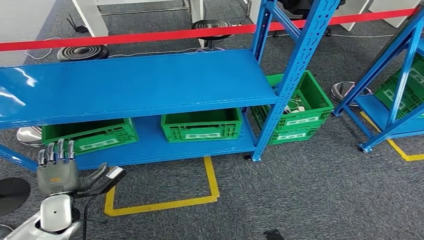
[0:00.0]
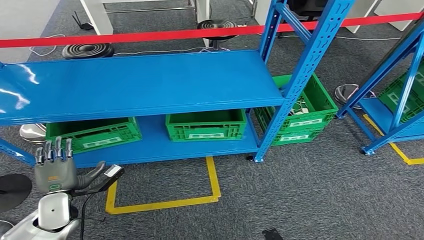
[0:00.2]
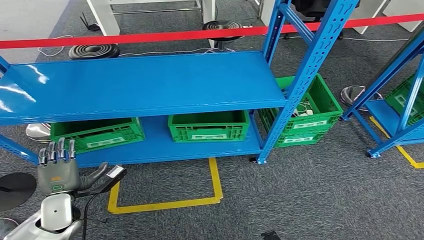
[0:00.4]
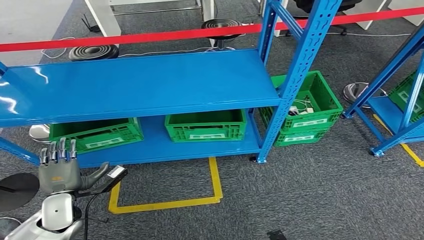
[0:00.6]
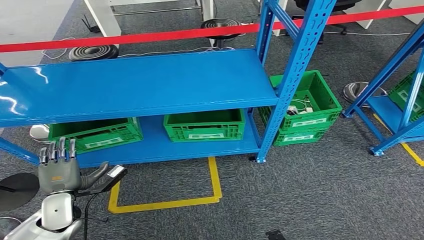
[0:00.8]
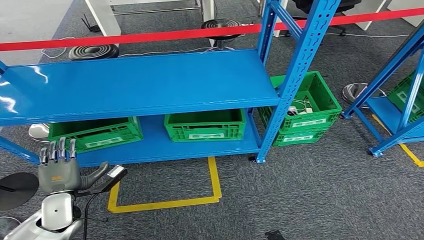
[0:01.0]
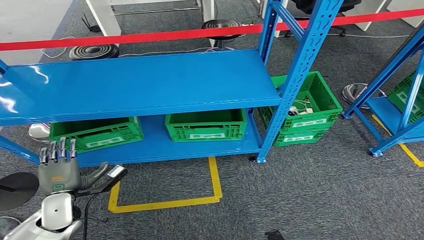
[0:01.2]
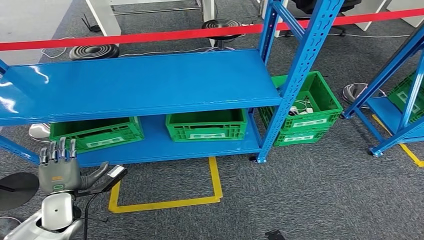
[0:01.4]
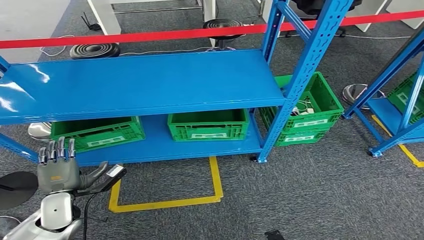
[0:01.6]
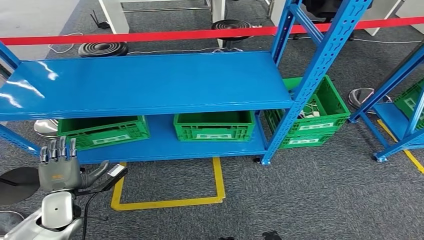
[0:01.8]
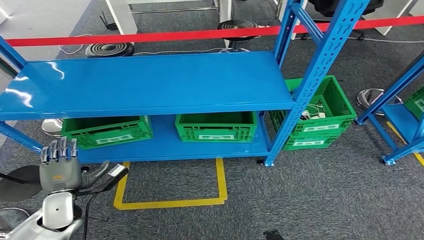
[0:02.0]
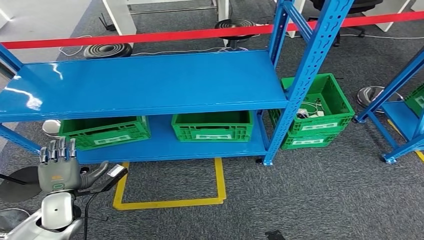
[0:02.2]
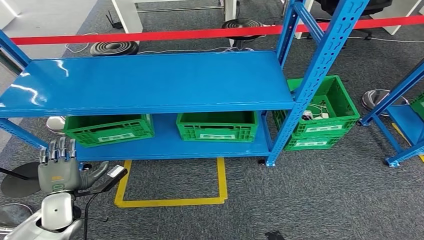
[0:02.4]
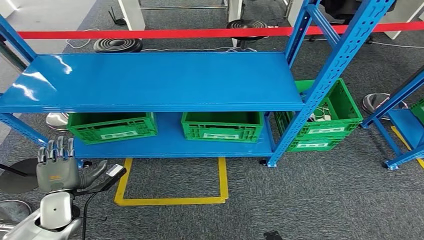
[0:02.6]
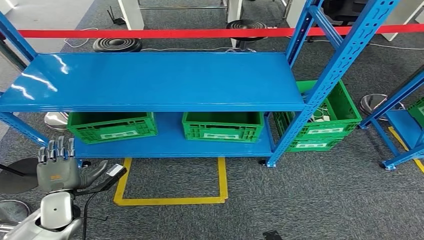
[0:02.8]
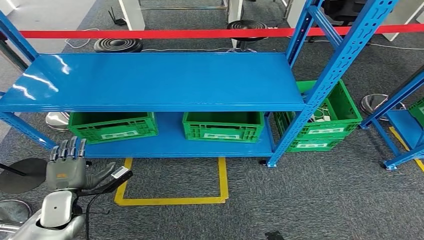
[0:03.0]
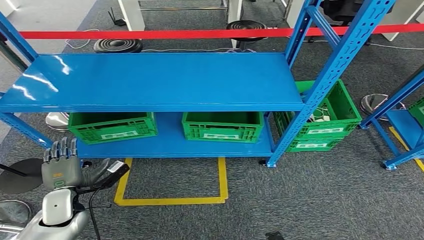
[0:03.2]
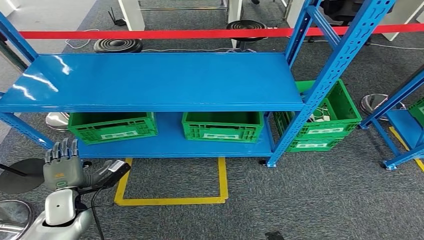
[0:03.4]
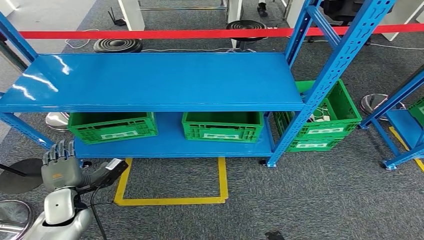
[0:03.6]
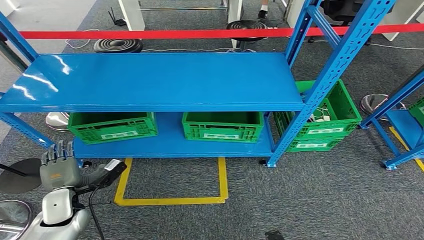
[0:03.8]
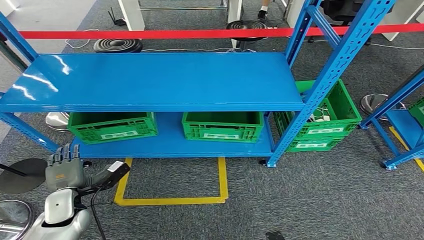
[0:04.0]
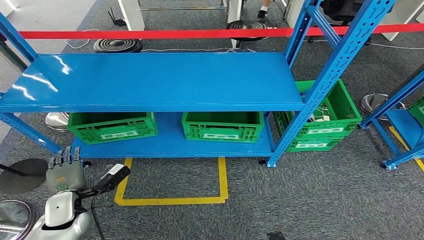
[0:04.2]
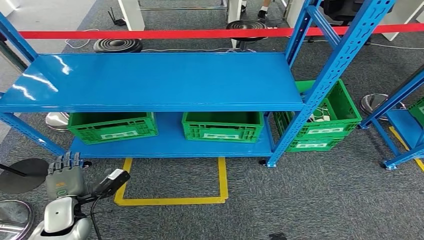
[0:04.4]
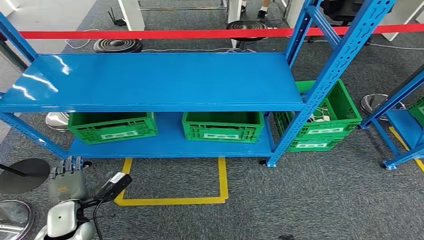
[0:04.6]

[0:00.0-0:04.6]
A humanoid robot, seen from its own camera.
Step, 0:00.0 to 0:04.4: Return to the initial position at the workbench.
0:03.0 to 0:04.6: The hands move only a little.
